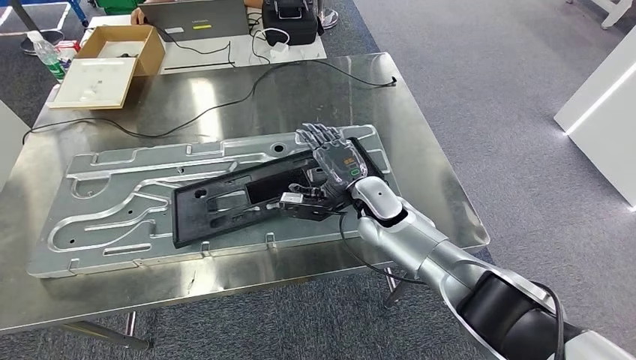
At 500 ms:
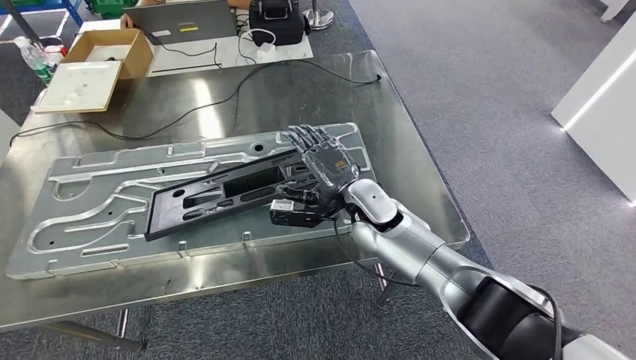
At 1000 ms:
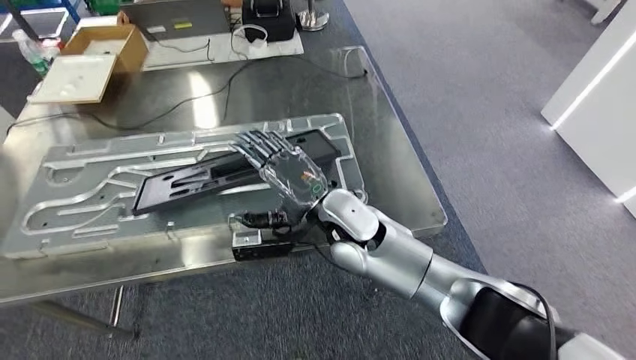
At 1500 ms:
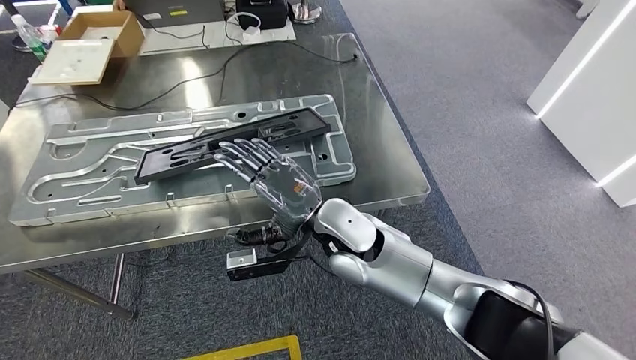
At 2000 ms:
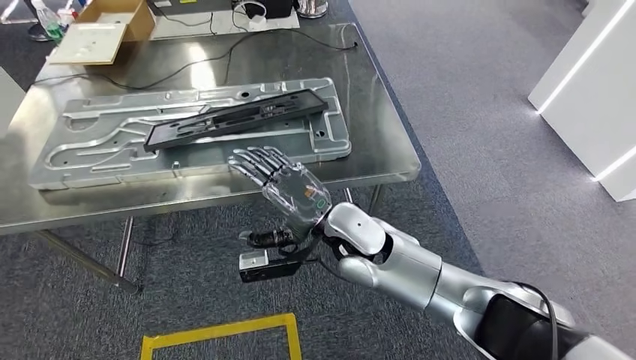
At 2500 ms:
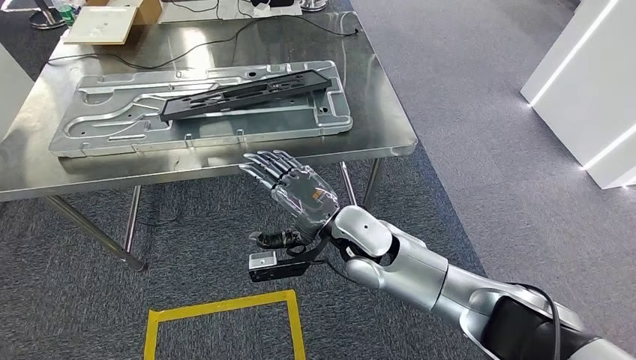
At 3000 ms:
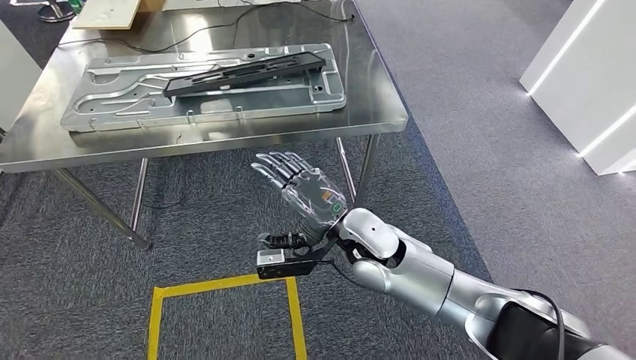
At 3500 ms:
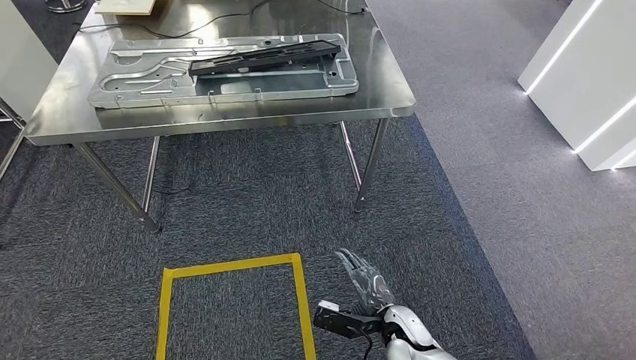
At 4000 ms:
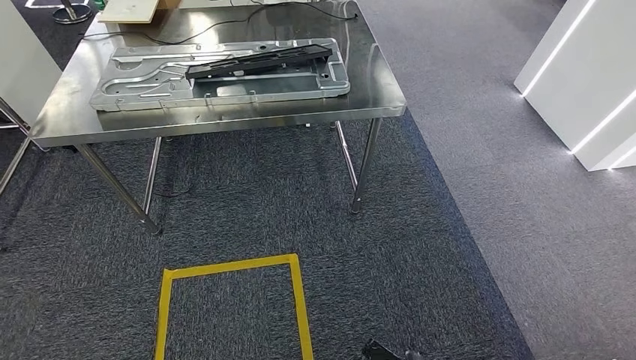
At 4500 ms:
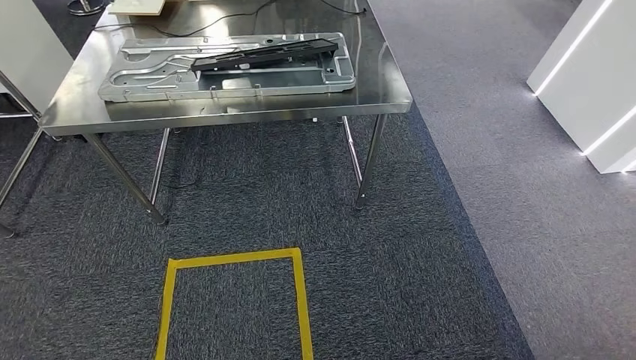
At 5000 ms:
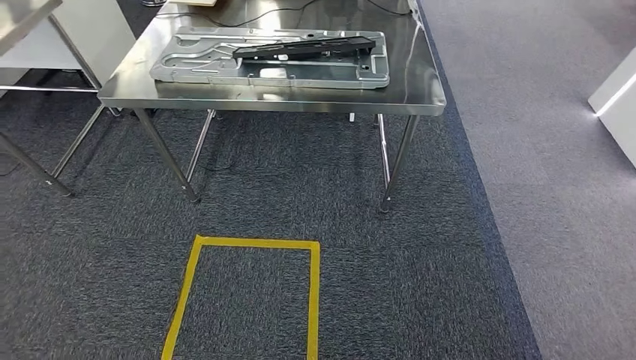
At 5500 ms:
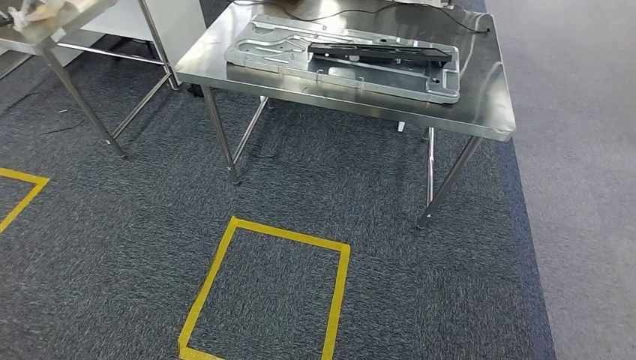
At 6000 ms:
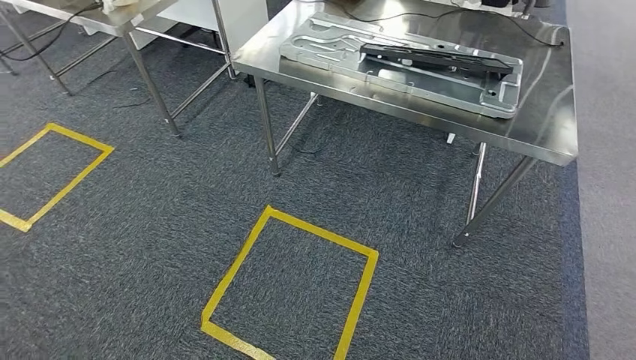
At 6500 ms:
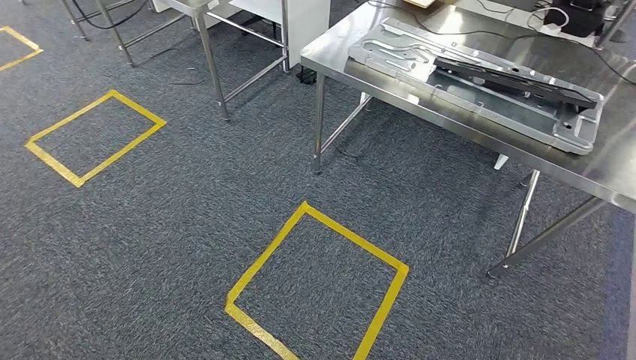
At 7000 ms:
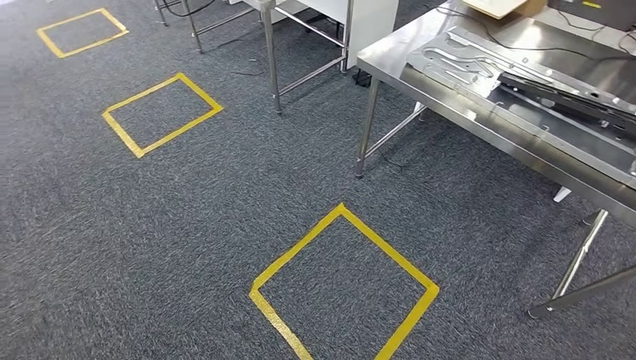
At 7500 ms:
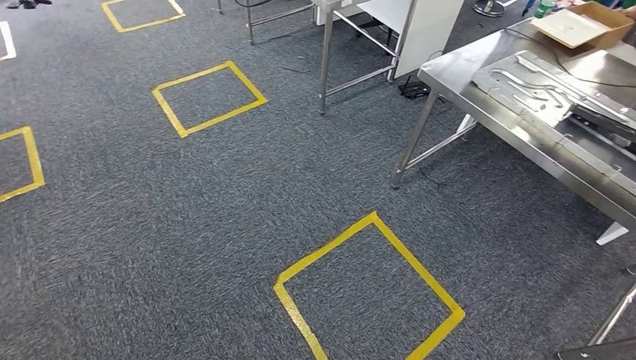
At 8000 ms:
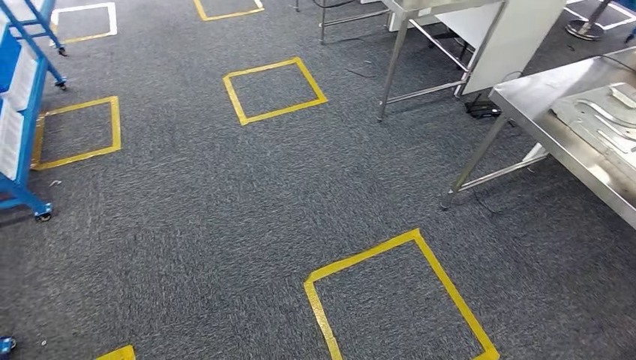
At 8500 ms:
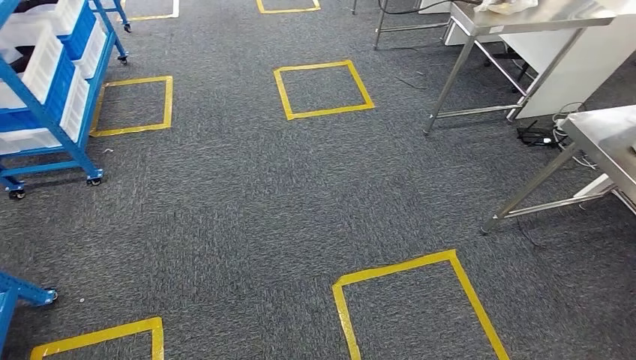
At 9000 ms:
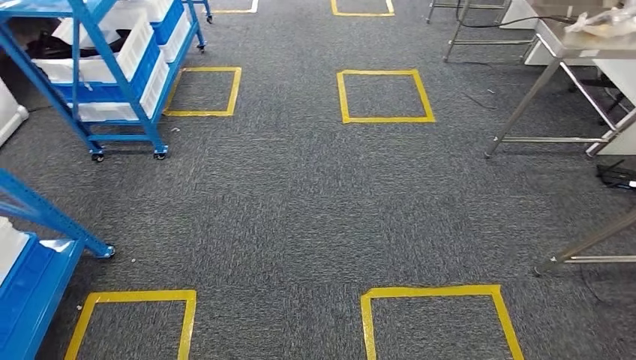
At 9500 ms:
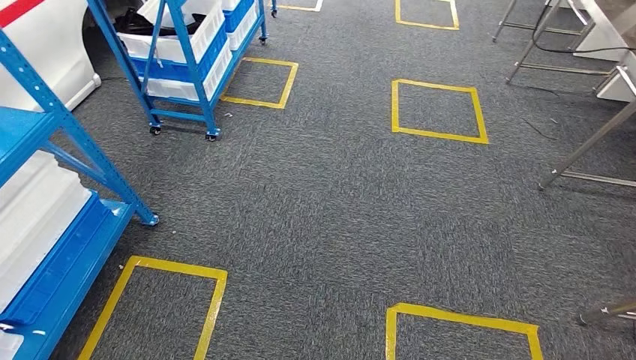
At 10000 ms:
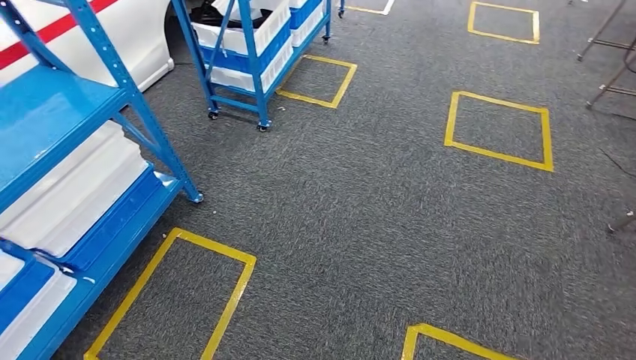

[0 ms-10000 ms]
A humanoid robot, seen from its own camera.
Step, 0 ms to 2000 ms: Insert the large material into the corresponding slot on the workbench.

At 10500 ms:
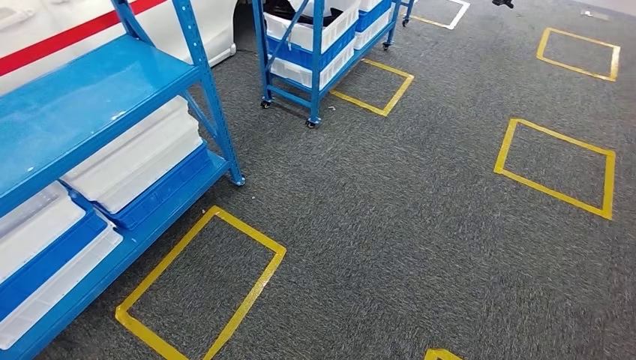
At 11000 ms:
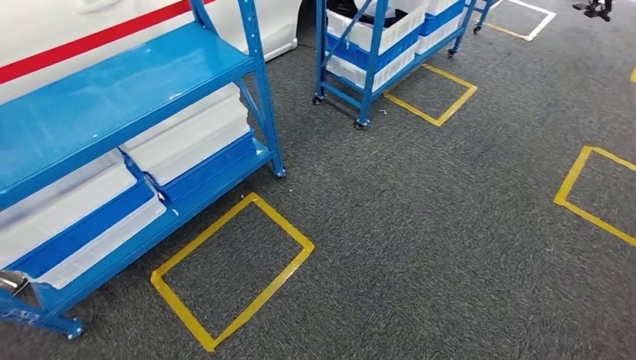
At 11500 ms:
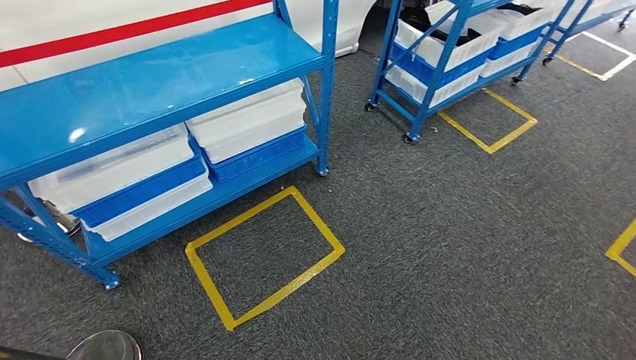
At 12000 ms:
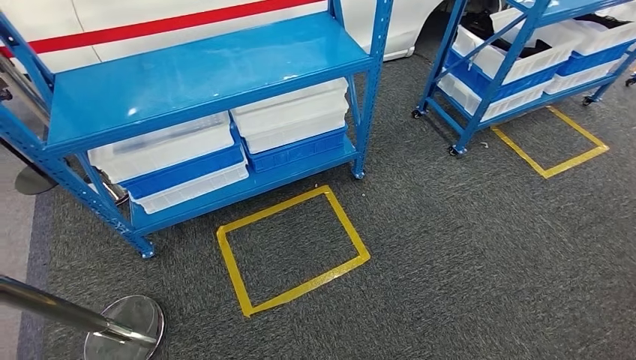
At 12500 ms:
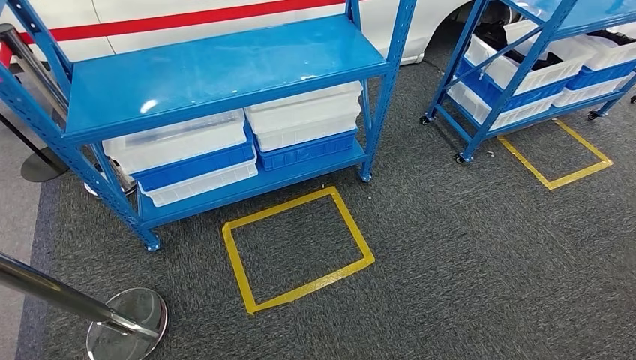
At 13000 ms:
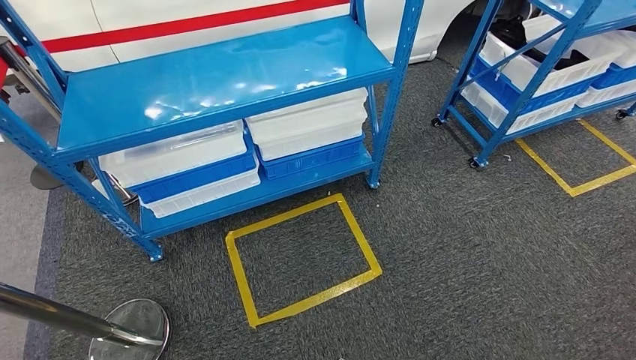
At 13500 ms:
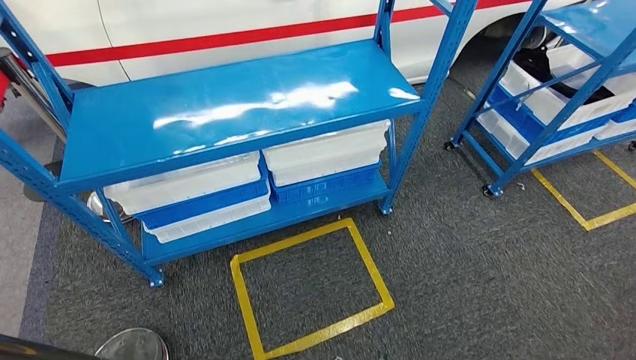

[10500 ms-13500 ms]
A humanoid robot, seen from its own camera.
Step, 10500 ms to 13500 ms: Move to the initial position of the shelf.
